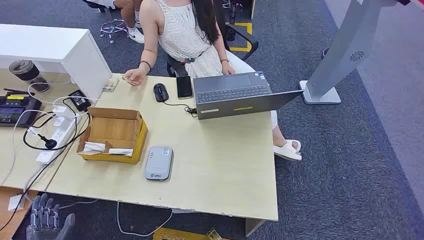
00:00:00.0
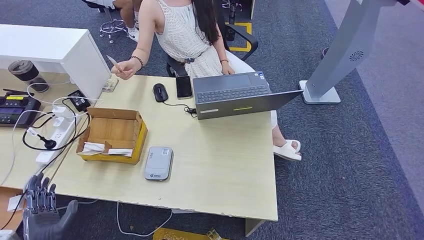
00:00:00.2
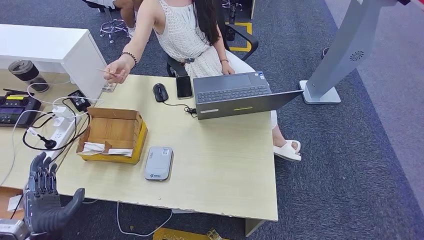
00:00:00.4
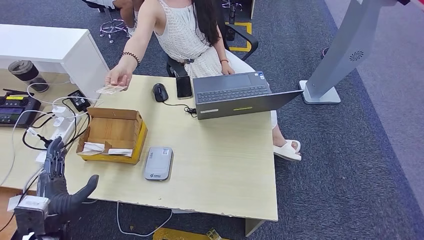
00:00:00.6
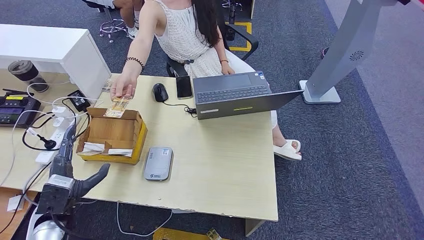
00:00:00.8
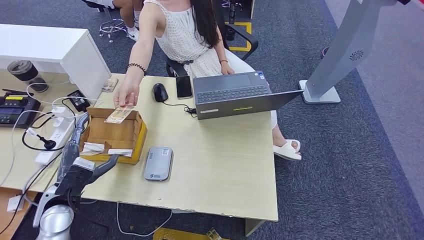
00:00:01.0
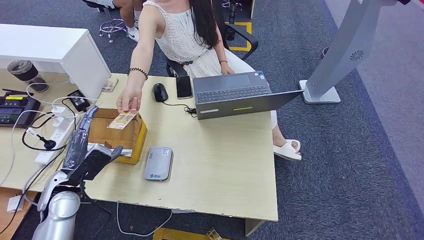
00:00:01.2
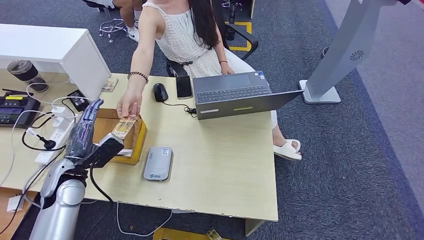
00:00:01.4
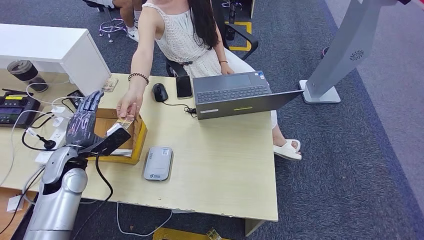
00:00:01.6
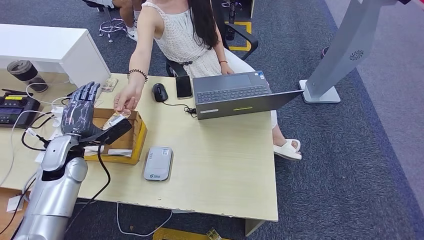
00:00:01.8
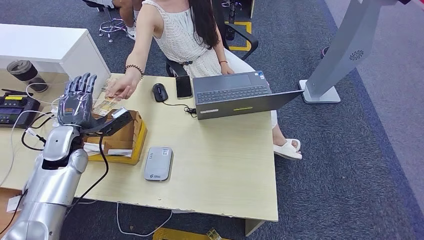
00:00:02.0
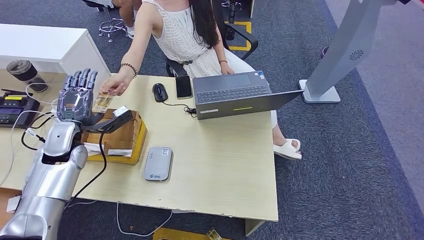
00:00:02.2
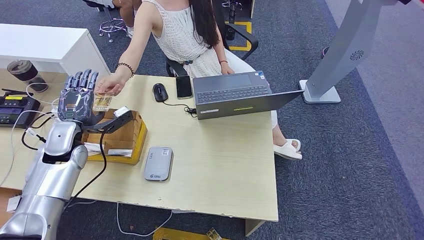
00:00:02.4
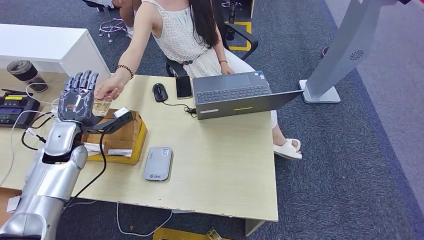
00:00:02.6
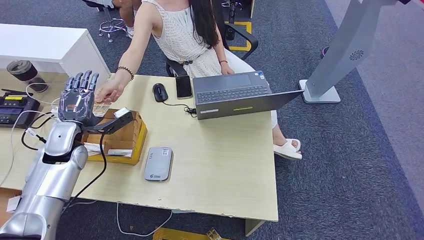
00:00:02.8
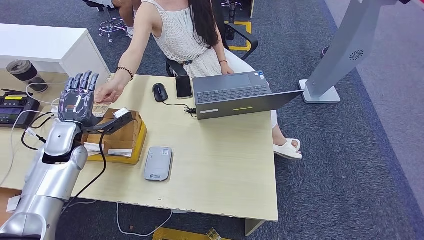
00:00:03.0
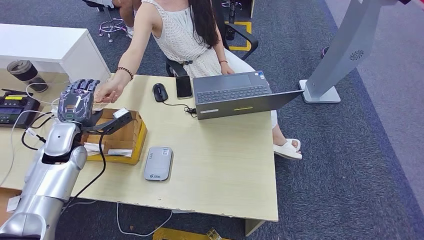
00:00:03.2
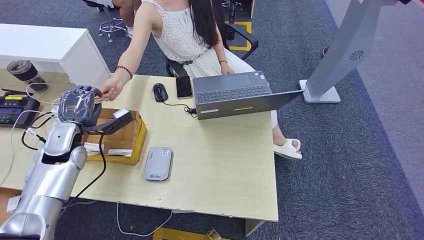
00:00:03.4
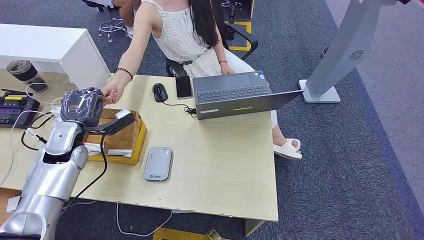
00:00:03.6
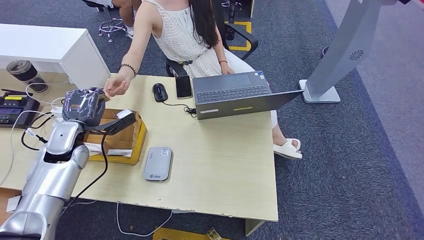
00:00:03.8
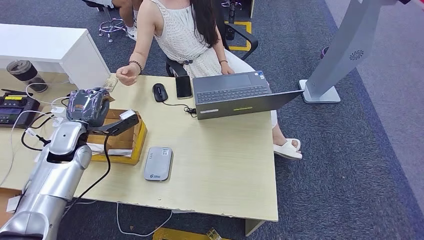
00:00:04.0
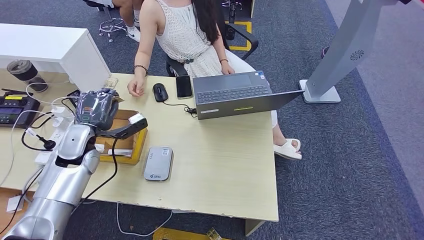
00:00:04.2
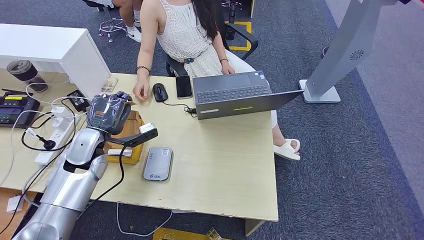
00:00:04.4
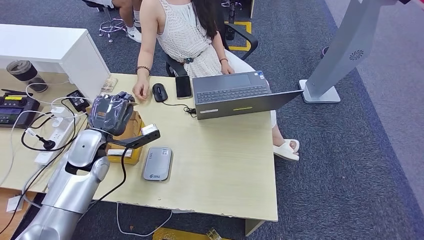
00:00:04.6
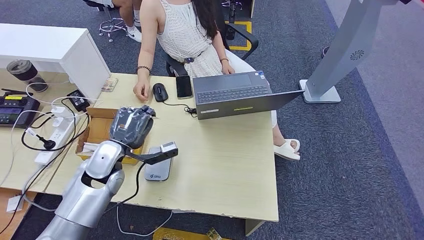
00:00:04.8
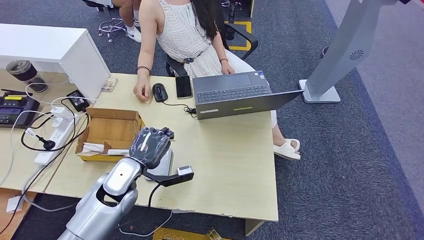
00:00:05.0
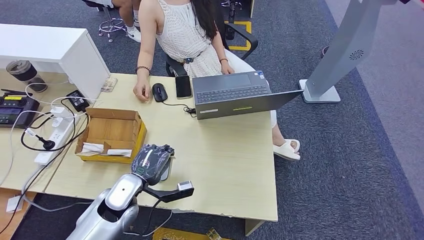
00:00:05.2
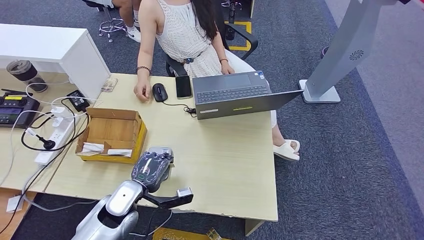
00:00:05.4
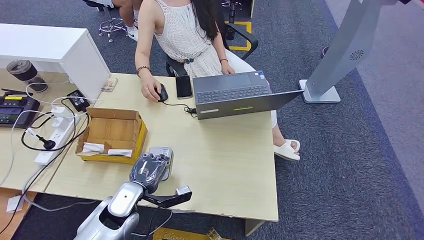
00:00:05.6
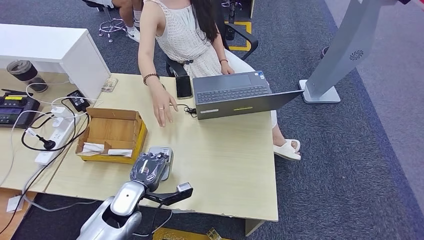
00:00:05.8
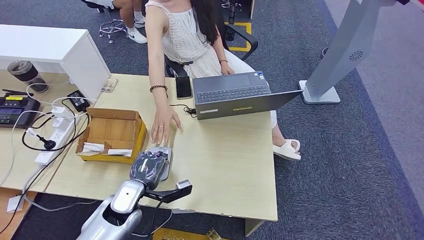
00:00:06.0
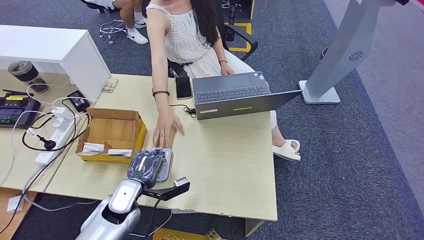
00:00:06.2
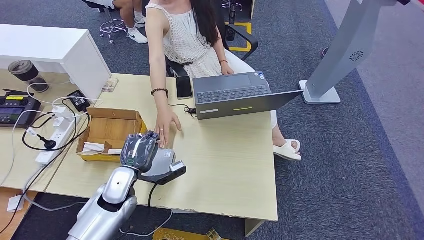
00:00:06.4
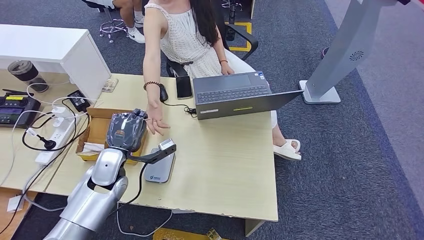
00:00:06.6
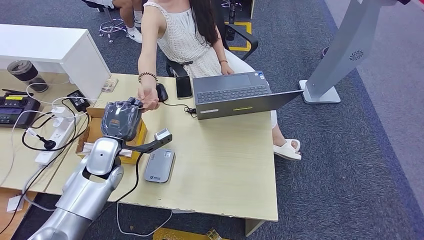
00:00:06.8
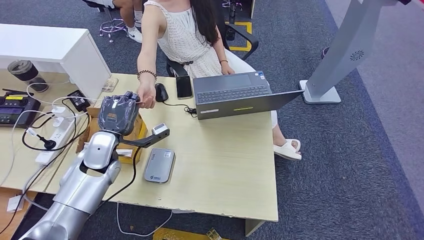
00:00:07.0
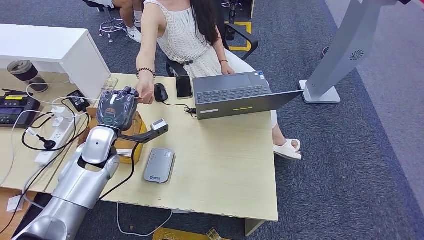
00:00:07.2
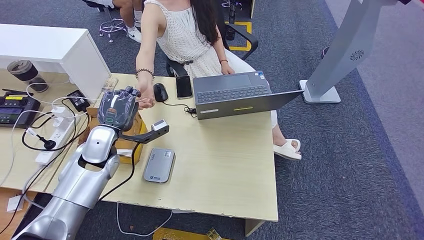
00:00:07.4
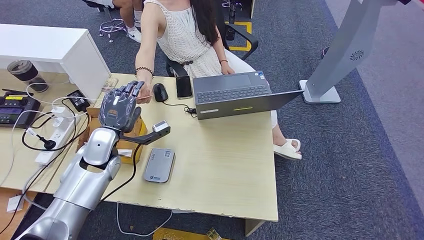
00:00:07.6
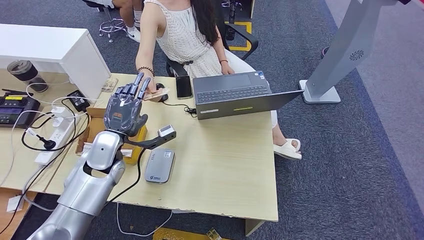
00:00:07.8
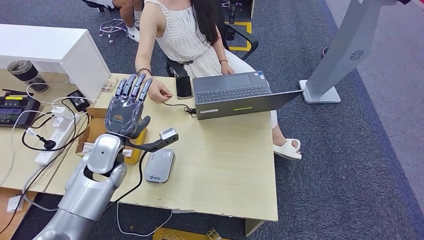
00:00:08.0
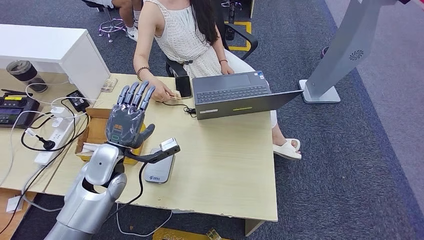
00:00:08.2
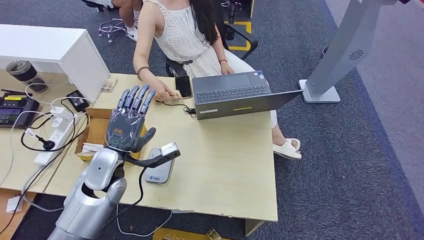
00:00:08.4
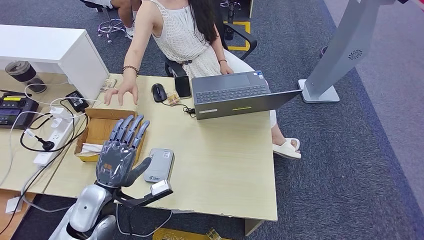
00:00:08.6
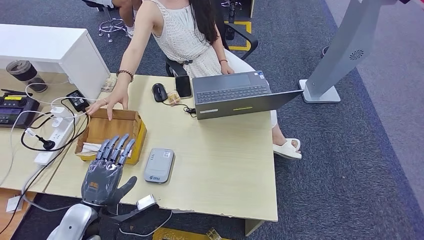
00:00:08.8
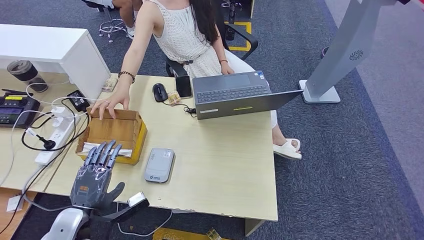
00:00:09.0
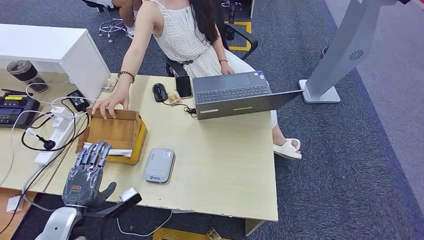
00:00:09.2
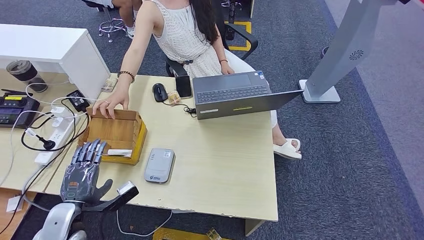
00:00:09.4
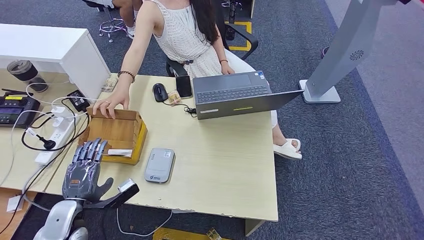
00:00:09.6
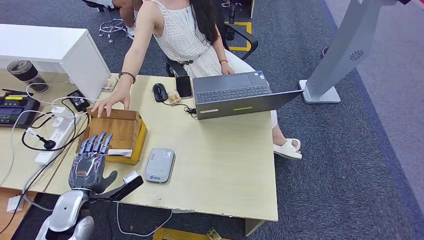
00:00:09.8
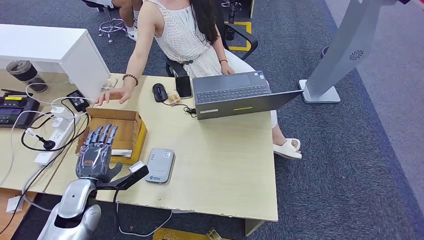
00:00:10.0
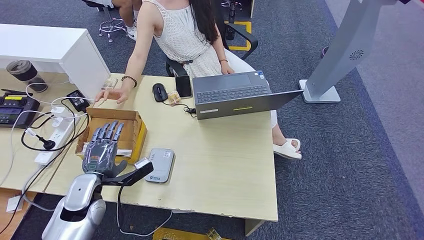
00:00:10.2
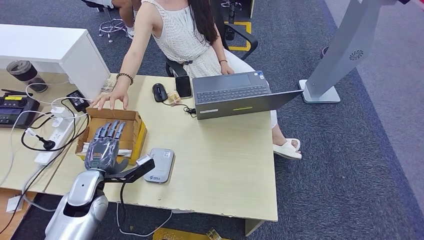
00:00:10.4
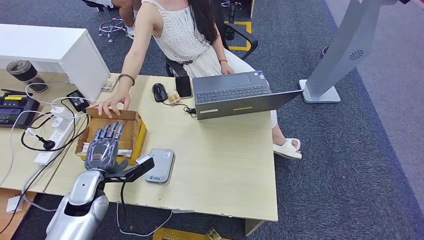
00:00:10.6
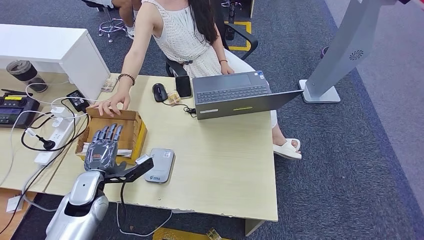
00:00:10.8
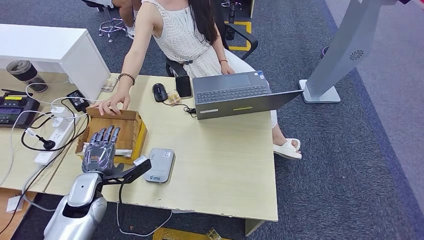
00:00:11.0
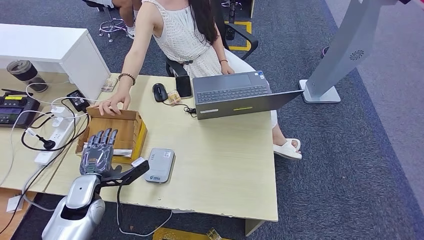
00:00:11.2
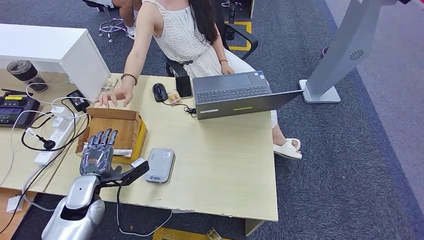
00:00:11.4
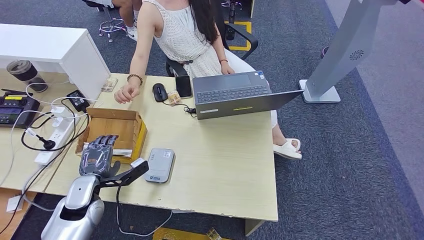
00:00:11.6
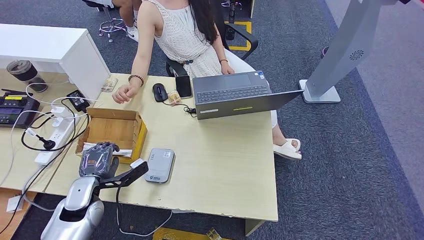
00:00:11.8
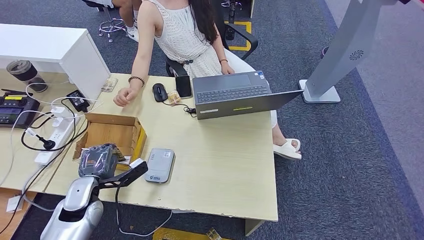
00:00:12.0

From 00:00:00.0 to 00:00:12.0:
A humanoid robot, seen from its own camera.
Step, from 00:00:00.0 to 00:00:03.6: Take the ID card from the person's hand.
Step, from 00:00:04.0 to 00:00:05.8: Place the ID card on the card reader.
Step, from 00:00:06.0 to 00:00:08.4: Hand the ID card to the person.
Step, from 00:00:08.6 to 00:00:11.8: Pick up the room key from the key card box.
From 00:00:01.6 to 00:00:03.0: The left hand is displaced forward by some 5 cm.
From 00:00:03.0 to 00:00:04.4: The left hand heads to the right, covering approximately 5 cm.
From 00:00:04.4 to 00:00:06.0: The left hand goes approximately 15 cm downward, to the right and backward.
From 00:00:06.0 to 00:00:07.6: The left hand shifts about 15 cm upward, forward and to the left.
From 00:00:07.6 to 00:00:09.0: The left hand shifts some 20 cm backward.
From 00:00:09.0 to 00:00:10.4: The left hand heads forward, covering some 10 cm.
From 00:00:10.4 to 00:00:12.0: There are only small adjustments of the hands.

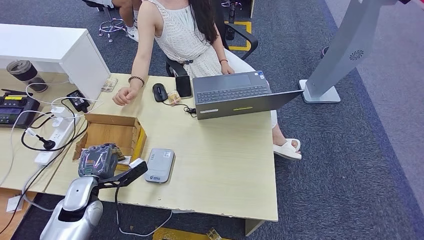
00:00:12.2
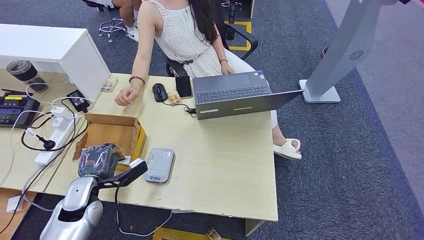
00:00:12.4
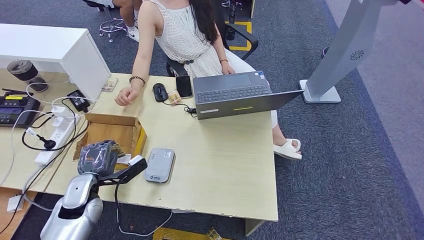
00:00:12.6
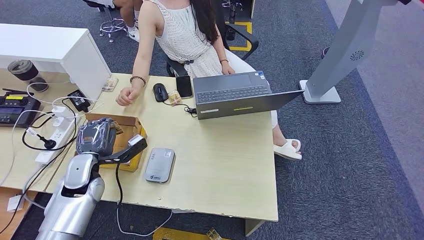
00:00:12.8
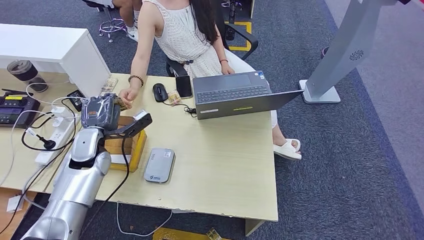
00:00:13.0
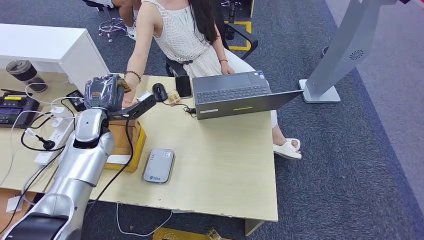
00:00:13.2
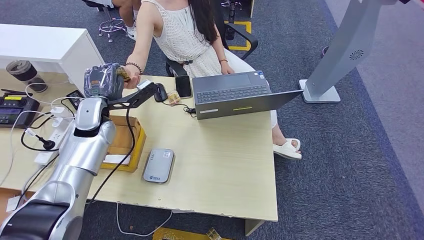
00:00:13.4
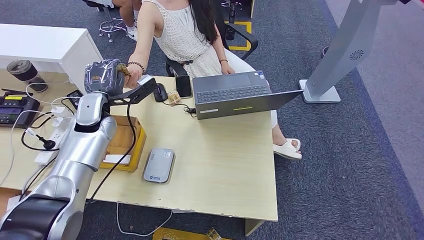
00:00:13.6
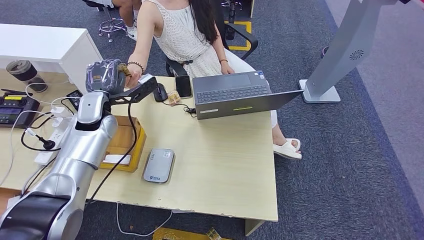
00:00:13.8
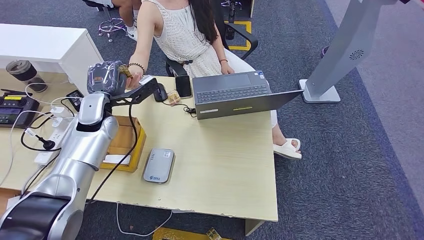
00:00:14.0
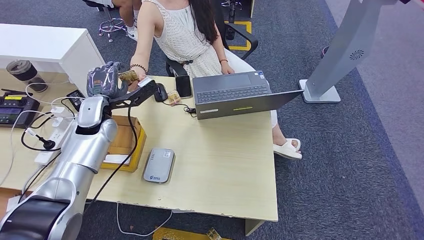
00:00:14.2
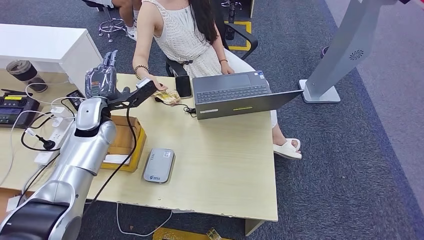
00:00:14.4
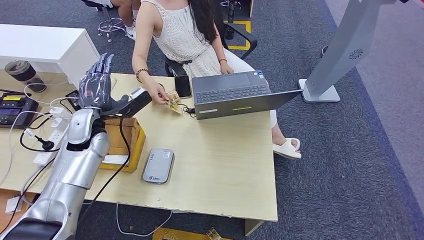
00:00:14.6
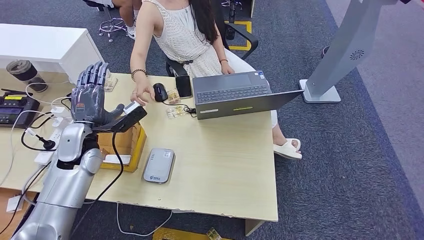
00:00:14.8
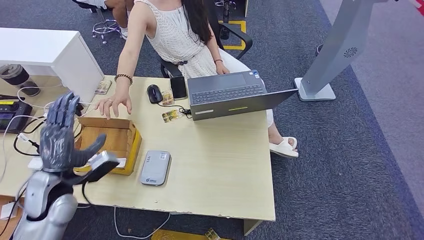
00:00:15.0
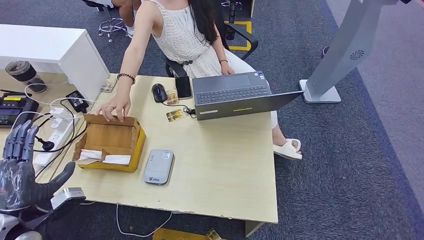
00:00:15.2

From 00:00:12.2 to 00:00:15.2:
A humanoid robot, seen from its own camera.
Step, from 00:00:12.2 to 00:00:15.2: Hand the room key to the person.
From 00:00:12.2 to 00:00:13.8: The left hand heads forward and upward, covering roughly 25 cm.
From 00:00:13.8 to 00:00:15.2: The left hand heads backward, covering approximately 25 cm.
